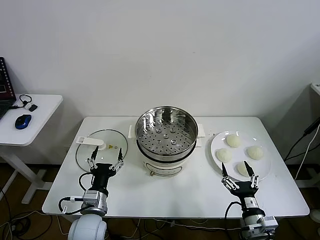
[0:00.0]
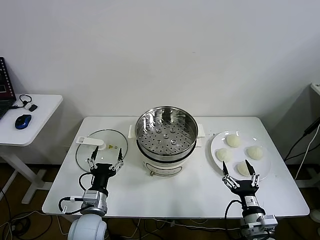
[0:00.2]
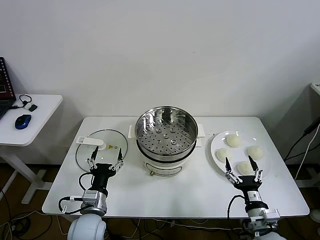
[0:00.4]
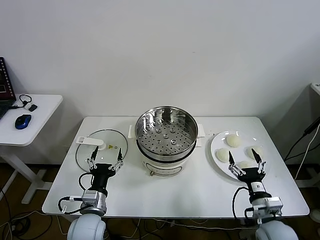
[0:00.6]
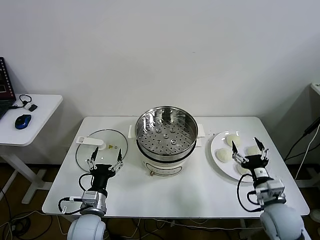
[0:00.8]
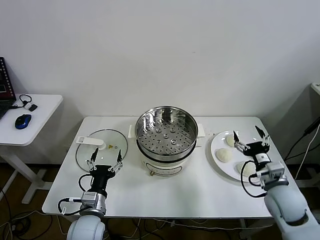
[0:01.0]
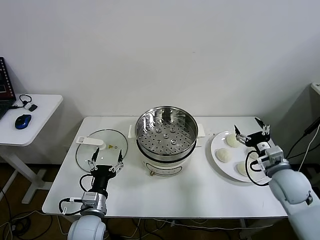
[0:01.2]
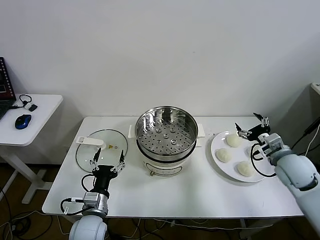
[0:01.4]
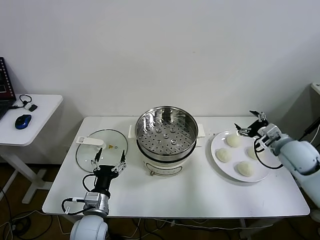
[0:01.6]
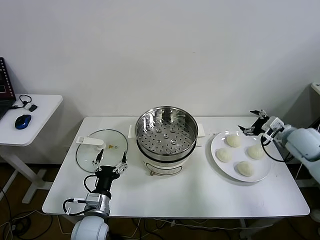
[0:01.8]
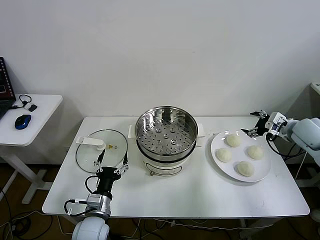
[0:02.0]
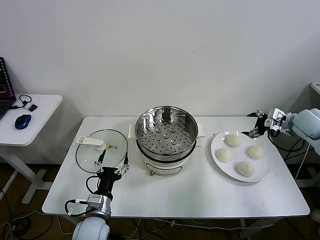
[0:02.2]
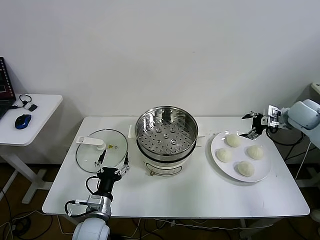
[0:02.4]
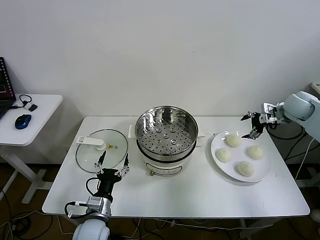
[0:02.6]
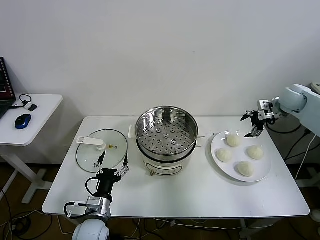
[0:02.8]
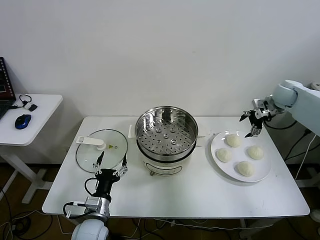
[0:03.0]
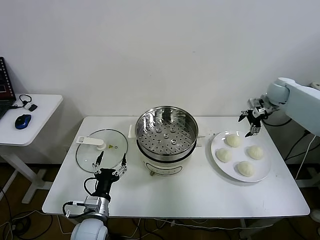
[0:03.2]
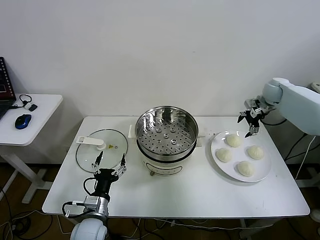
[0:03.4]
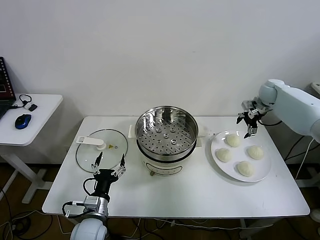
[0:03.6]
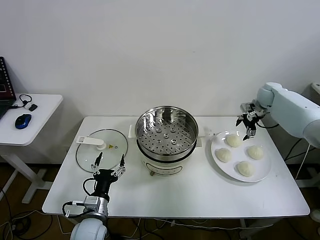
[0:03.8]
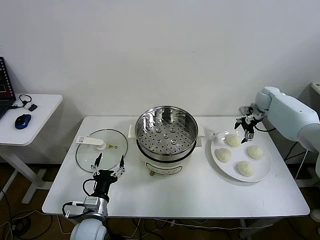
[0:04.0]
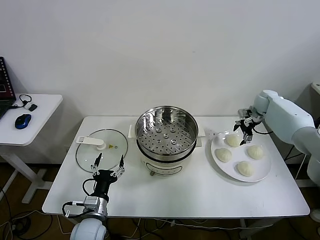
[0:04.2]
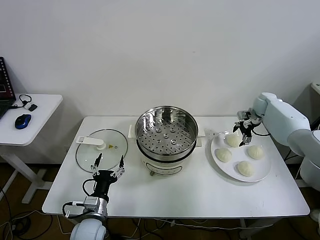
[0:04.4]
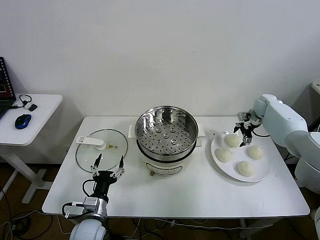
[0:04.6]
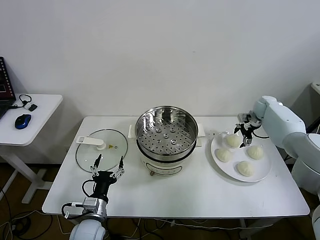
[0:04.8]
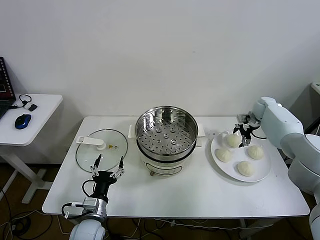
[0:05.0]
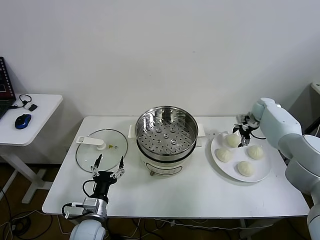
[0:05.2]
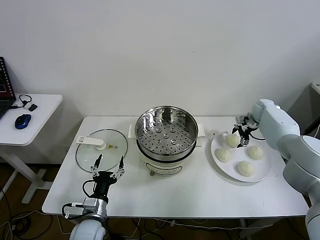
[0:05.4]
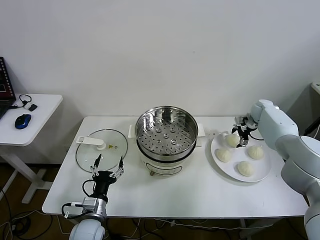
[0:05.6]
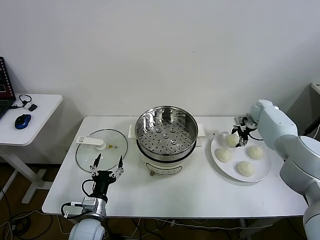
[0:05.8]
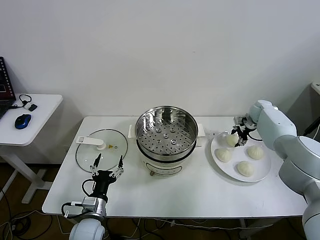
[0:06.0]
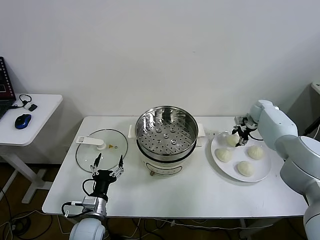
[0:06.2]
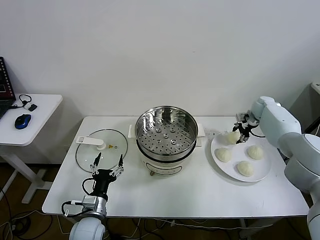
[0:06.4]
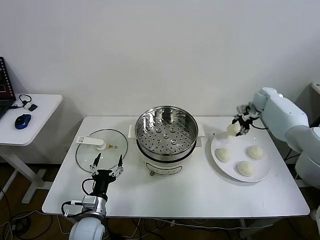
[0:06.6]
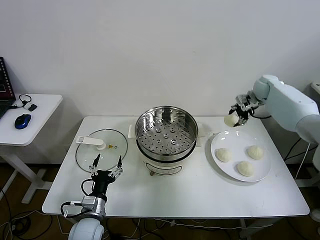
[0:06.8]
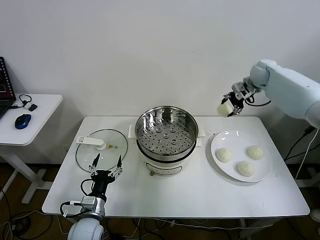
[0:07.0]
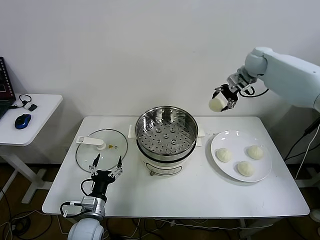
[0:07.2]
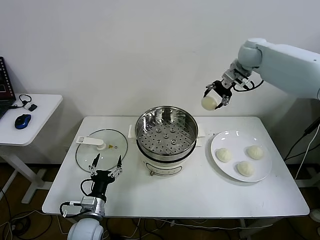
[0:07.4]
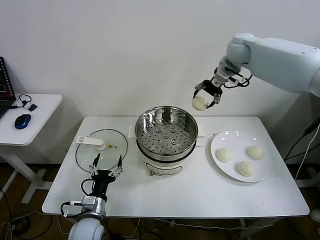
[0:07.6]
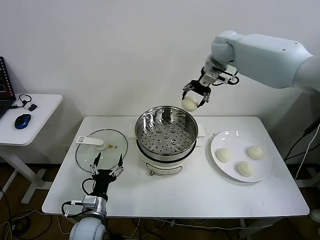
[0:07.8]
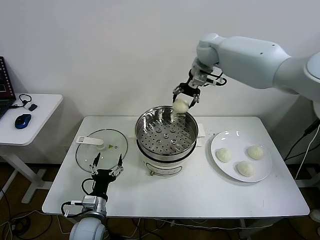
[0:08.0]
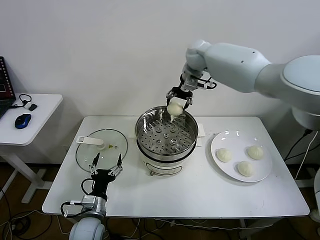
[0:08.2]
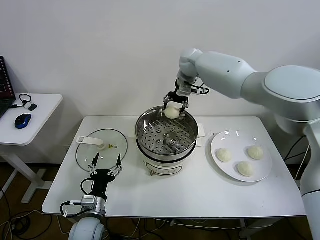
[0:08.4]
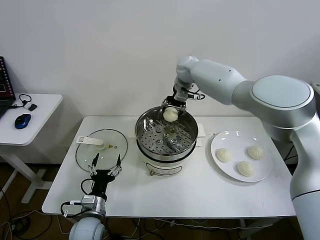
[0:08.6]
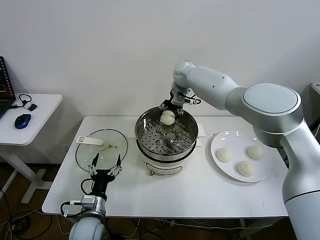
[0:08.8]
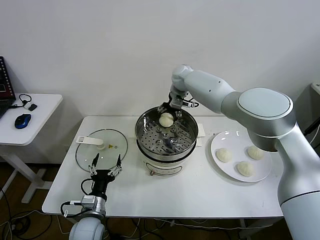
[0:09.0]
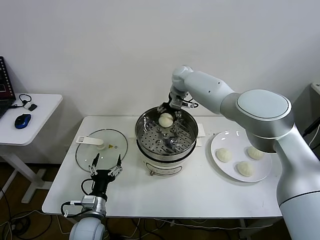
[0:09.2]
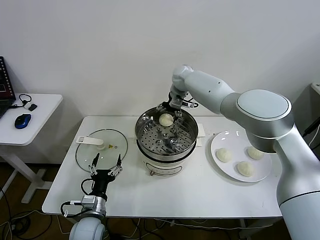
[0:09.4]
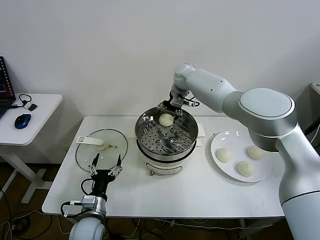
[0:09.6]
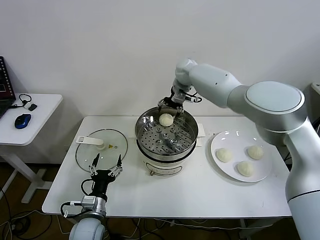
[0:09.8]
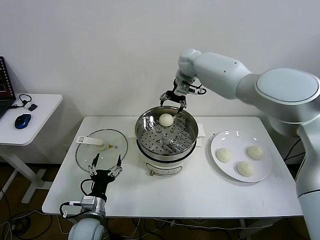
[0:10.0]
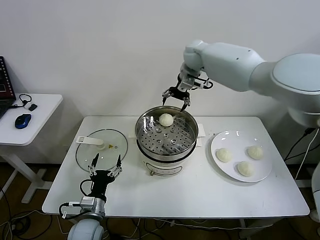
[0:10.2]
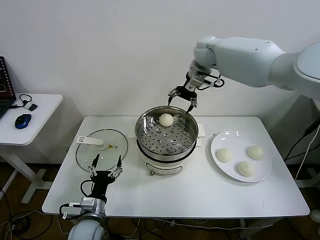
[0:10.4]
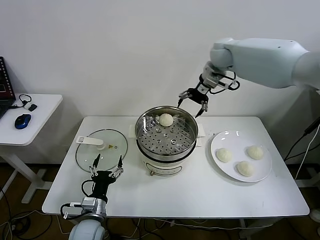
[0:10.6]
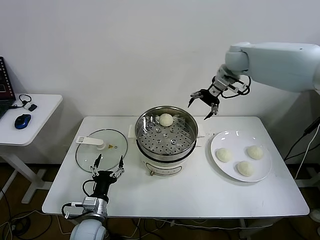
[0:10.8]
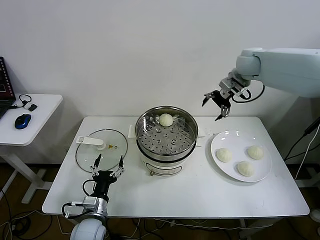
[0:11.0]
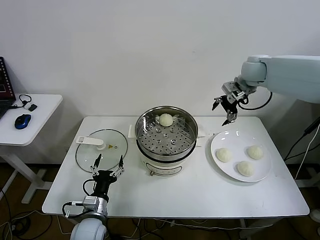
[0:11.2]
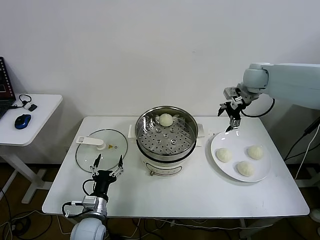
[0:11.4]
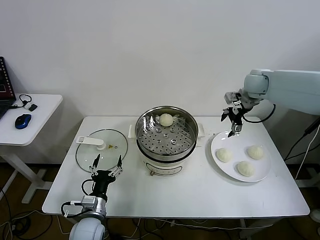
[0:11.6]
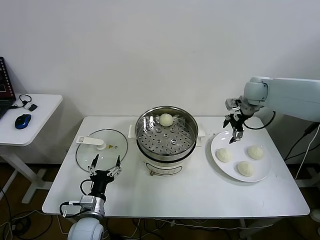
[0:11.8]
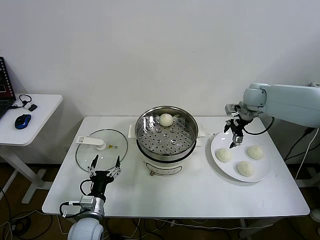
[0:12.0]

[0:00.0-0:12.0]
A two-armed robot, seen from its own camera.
Step, 0:00.0 to 0:06.0: Grasp the baozi in the plate with right gripper.
Step, 0:06.2 to 0:09.2: Place the baozi on the steamer with right gripper.
0:01.6 to 0:03.0: The right gripper is displaced forward by some 20 cm.
0:03.0 to 0:04.4: The right gripper is displaced downward by approximately 10 cm.
0:04.4 to 0:06.0: The right gripper closes.
0:06.0 to 0:07.6: The right gripper goes some 35 cm upward and to the left.
0:07.6 to 0:09.0: The right gripper goes approximately 20 cm to the left and downward.
0:09.0 to 0:10.4: The right gripper is displaced upward and to the right by about 15 cm.
0:10.4 to 0:12.0: The right gripper moves to the right and downward, about 20 cm.

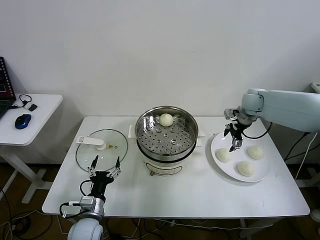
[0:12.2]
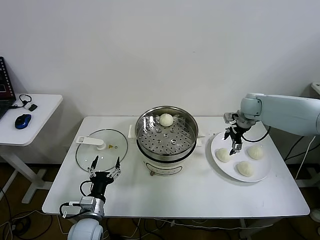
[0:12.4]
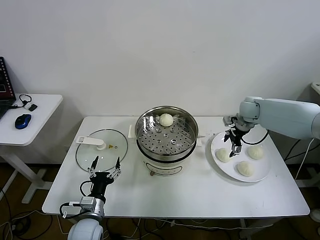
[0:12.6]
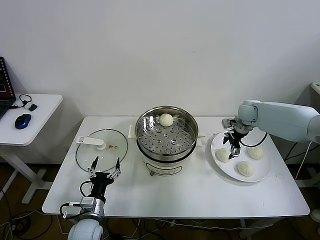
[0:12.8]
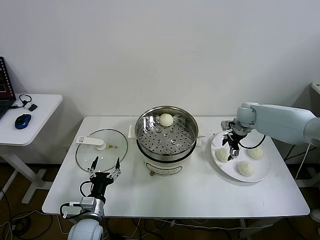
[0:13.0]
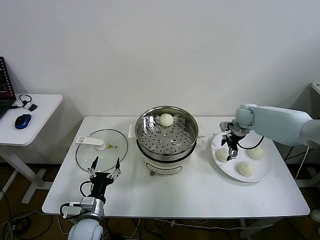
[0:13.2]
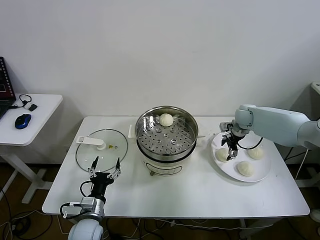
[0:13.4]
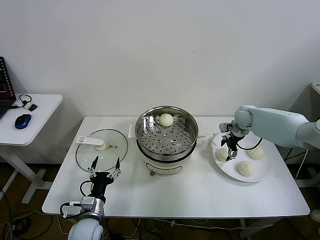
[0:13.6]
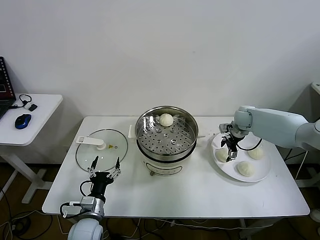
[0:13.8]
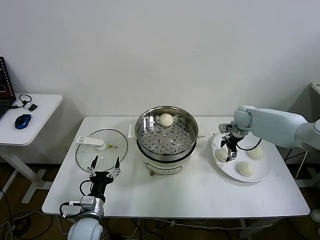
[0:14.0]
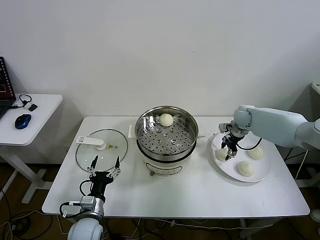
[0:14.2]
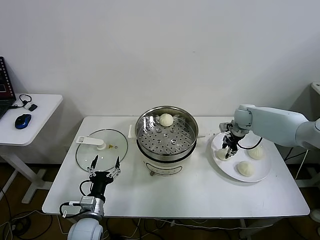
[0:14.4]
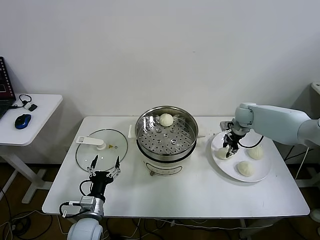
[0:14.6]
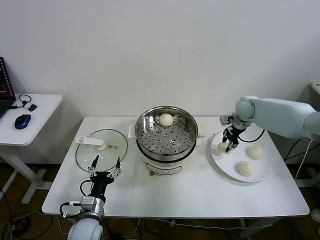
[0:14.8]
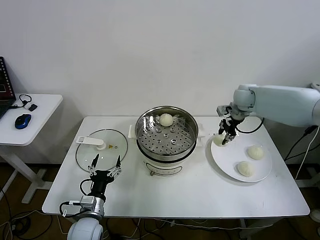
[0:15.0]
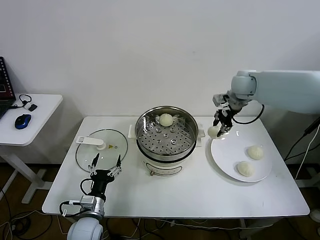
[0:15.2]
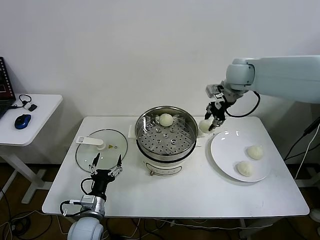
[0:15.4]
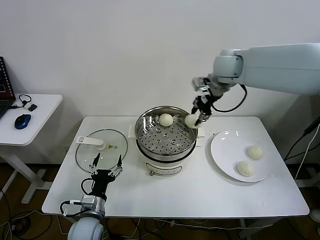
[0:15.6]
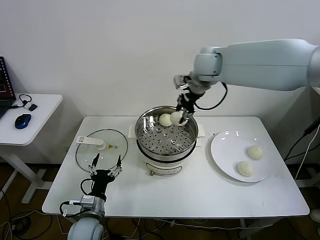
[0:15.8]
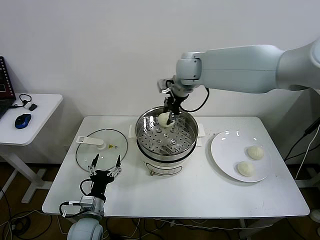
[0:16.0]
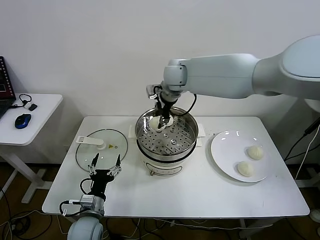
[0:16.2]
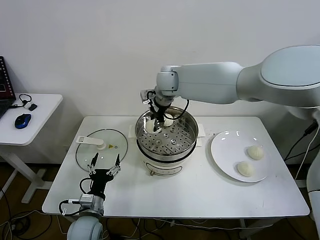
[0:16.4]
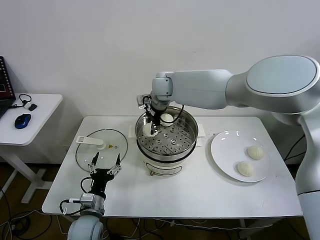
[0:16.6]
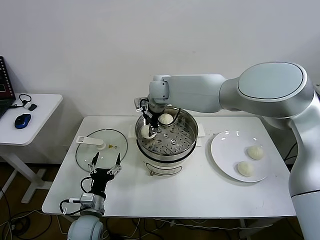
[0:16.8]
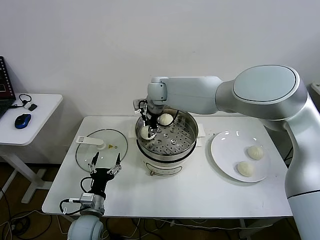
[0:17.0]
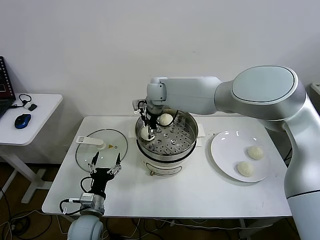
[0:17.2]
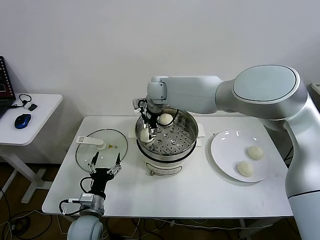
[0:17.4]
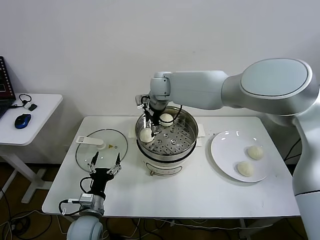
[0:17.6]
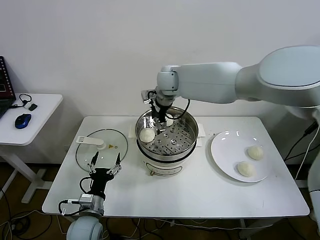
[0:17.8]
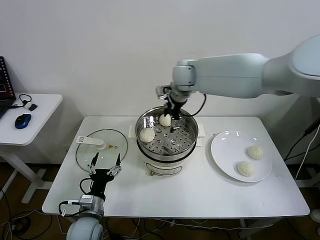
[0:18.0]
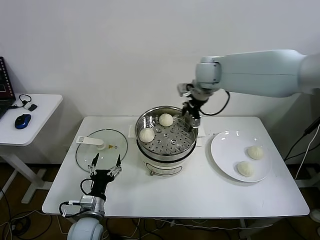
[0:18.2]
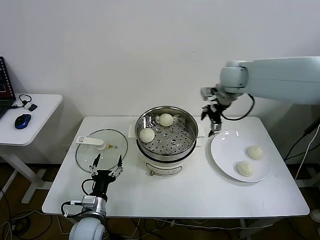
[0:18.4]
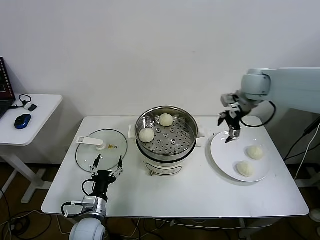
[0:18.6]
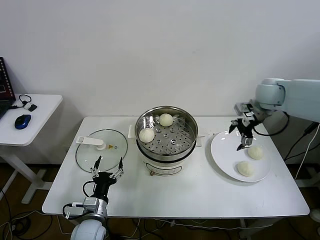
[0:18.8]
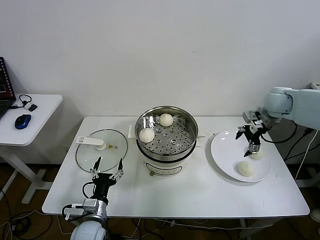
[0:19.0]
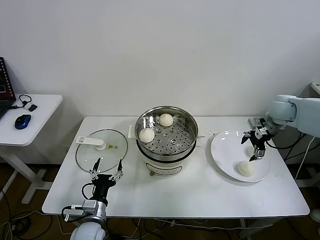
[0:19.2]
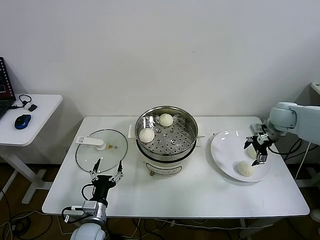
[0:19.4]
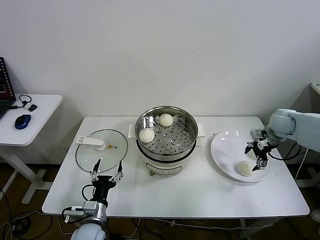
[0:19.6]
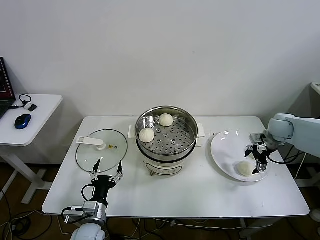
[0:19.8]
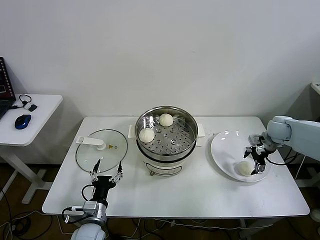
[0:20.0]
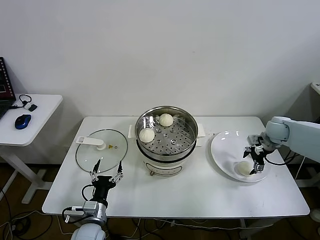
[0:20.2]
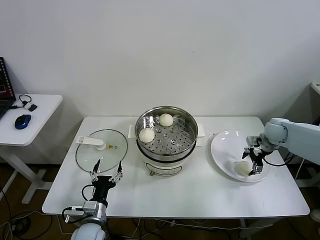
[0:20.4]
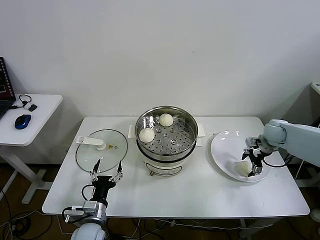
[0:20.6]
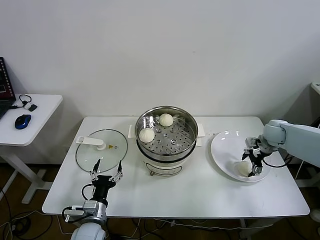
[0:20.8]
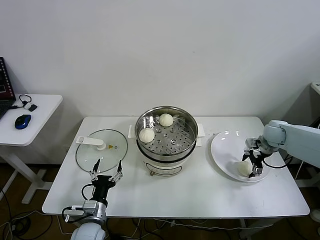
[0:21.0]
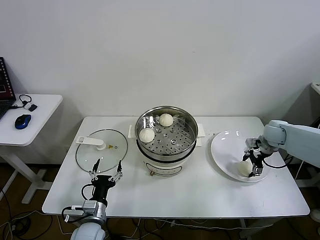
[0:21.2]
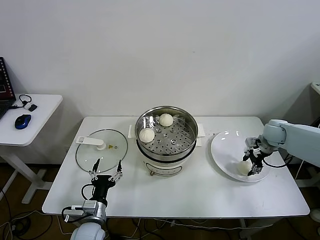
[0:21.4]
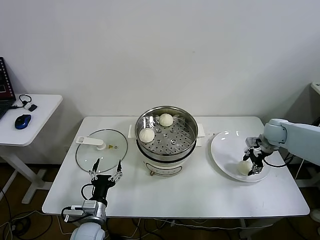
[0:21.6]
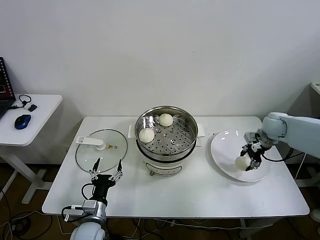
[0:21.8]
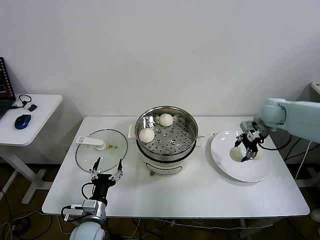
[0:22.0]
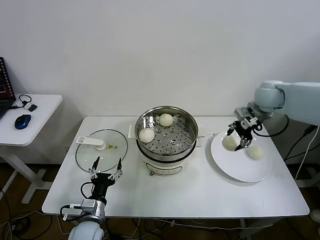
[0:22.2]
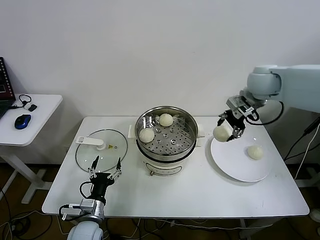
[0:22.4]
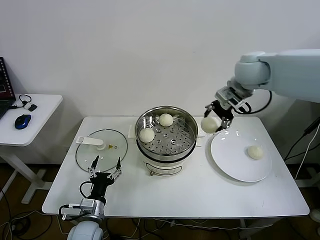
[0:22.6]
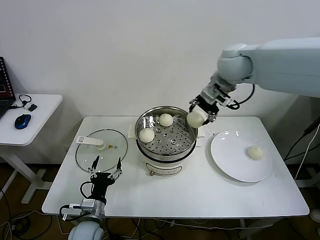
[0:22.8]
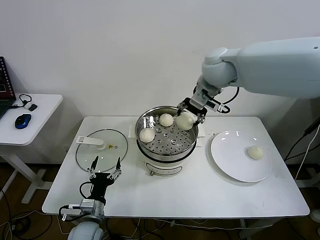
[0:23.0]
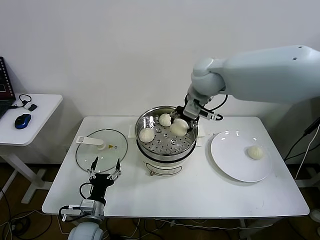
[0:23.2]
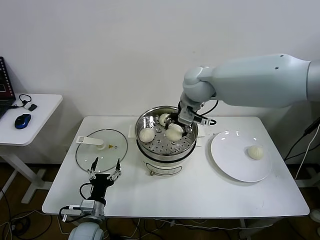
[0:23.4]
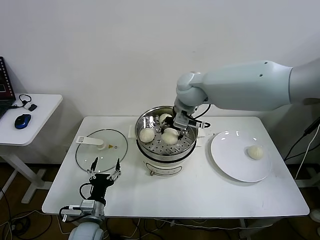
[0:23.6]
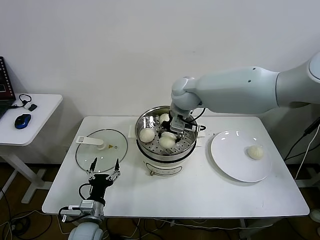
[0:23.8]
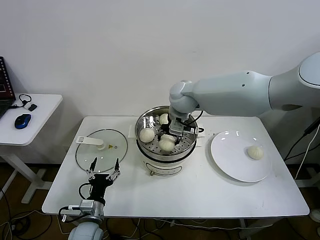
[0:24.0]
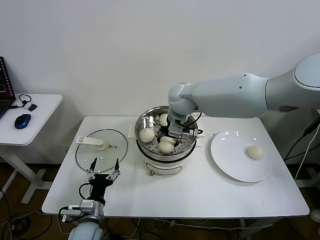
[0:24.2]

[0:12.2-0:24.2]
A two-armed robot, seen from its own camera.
Step, 0:12.2 to 0:14.4: Grasp the baozi in the plate with right gripper.
Step, 0:14.6 to 0:17.2: Place the baozi on the steamer with right gripper.
Step, 0:17.4 to 0:21.4: Grasp the baozi in the plate with right gripper.
0:12.2 to 0:13.8: The right gripper heads downward, covering roughly 10 cm.
0:13.8 to 0:15.2: The right gripper heads upward and to the left, covering some 20 cm, and closes its fingers.
0:15.2 to 0:16.6: The right gripper goes about 25 cm to the left.
0:16.6 to 0:18.2: The right gripper shifts some 15 cm to the right, and opens its fingers.
0:18.2 to 0:19.8: The right gripper travels to the right and downward by approximately 30 cm.
0:19.8 to 0:21.2: The grippers stay close to where they were, moving slightly.
0:21.2 to 0:22.6: The right gripper travels upward and to the left by approximately 35 cm.
0:22.6 to 0:24.2: The right gripper heads to the left and downward, covering approximately 20 cm.
